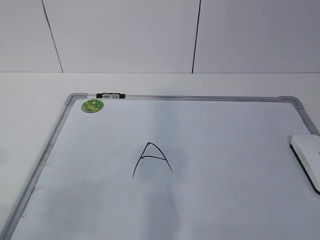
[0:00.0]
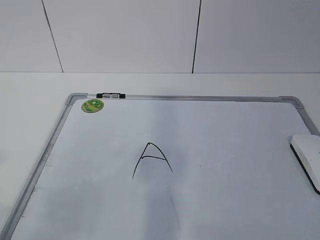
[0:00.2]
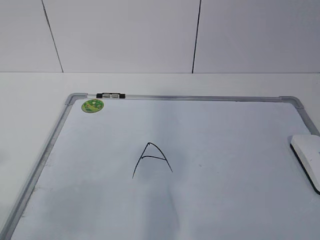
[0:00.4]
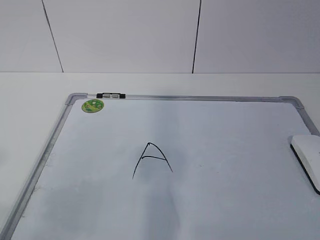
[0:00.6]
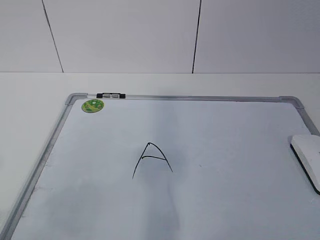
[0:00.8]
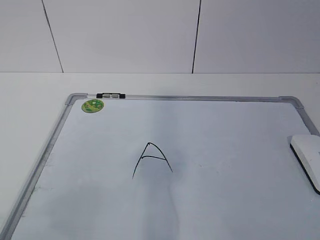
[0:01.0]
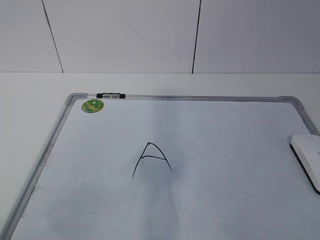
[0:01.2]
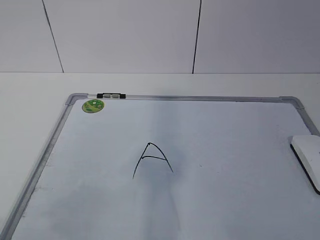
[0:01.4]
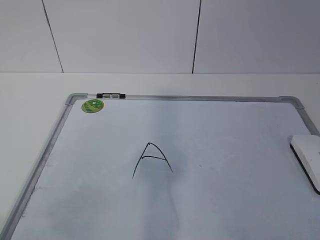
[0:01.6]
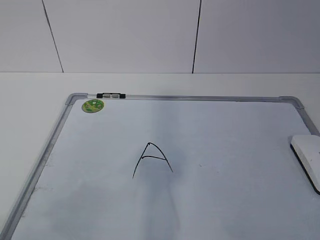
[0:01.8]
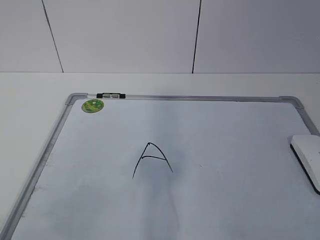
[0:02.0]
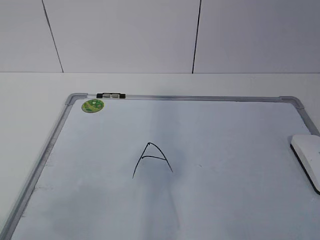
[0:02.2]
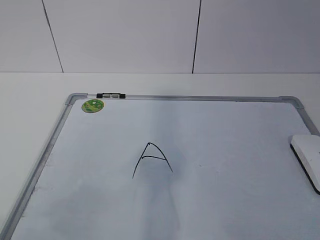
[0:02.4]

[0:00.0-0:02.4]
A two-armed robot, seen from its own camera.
Task of the whole recording: pick up the eraser on the blackboard and erase the letter "a".
0:01.2 to 0:02.4: Both grippers stay about where they are.
